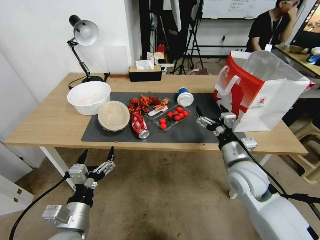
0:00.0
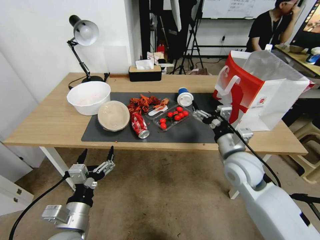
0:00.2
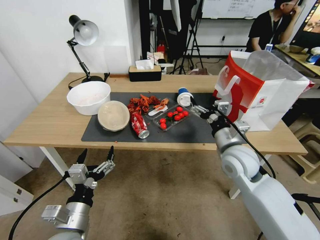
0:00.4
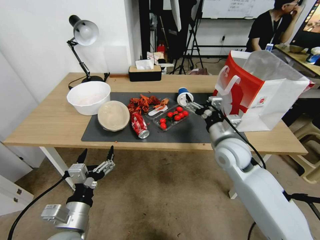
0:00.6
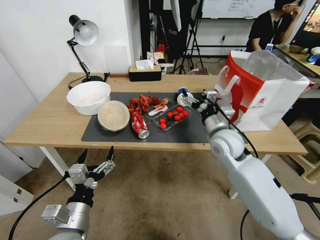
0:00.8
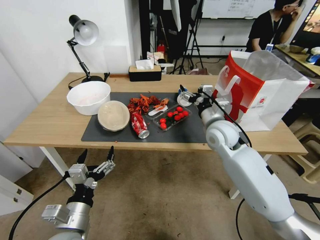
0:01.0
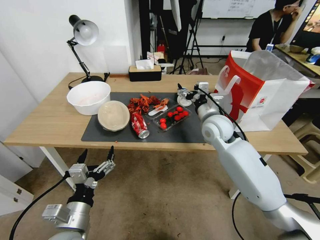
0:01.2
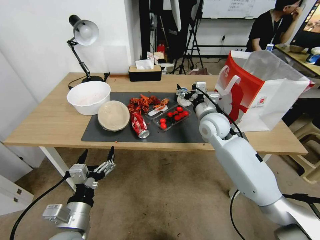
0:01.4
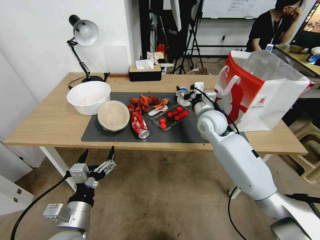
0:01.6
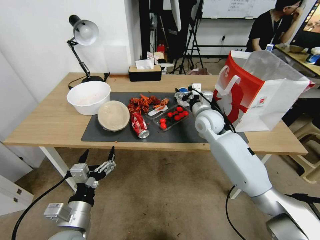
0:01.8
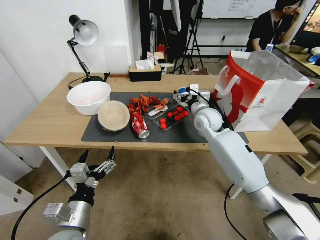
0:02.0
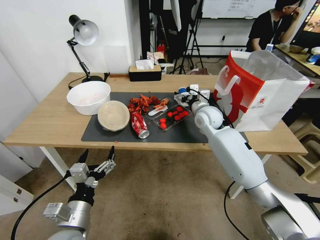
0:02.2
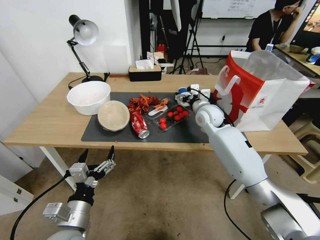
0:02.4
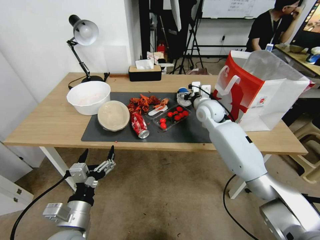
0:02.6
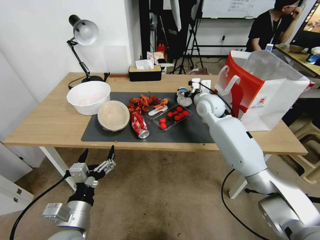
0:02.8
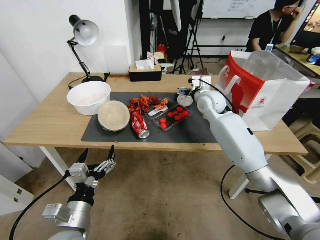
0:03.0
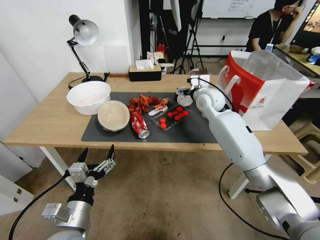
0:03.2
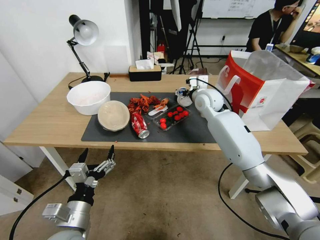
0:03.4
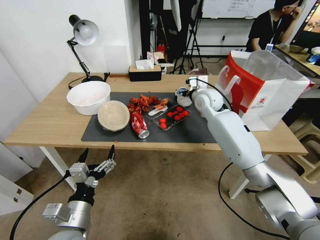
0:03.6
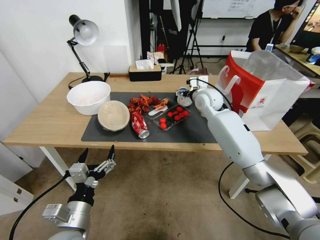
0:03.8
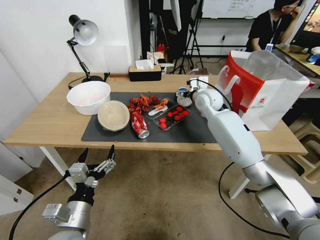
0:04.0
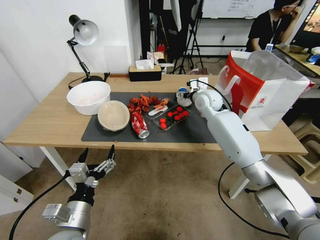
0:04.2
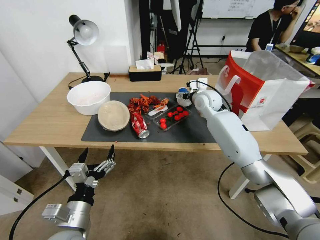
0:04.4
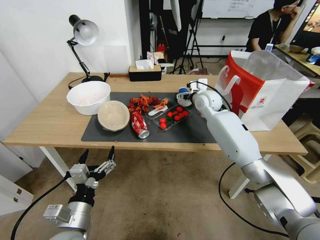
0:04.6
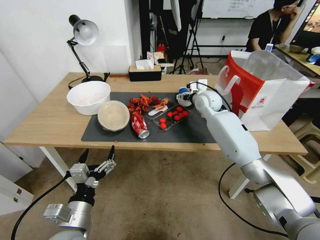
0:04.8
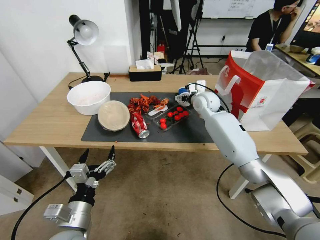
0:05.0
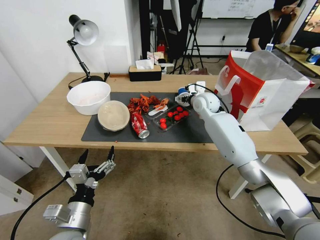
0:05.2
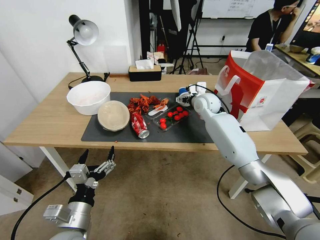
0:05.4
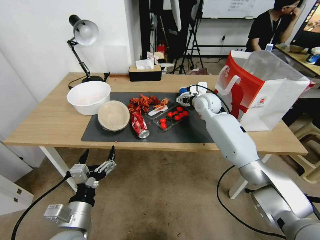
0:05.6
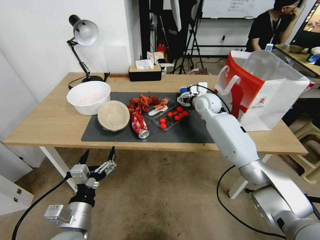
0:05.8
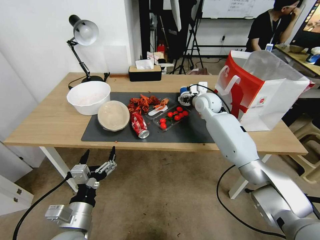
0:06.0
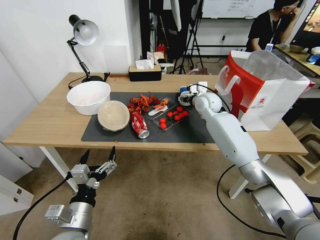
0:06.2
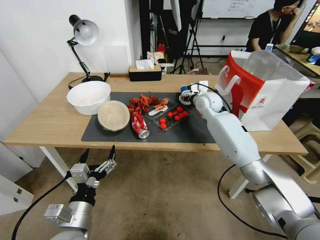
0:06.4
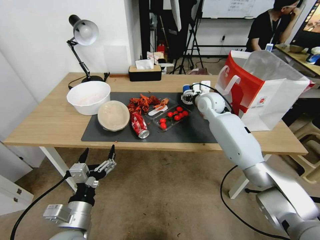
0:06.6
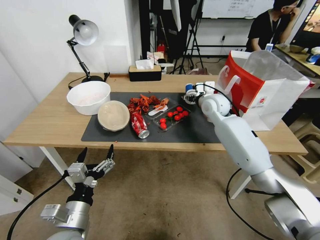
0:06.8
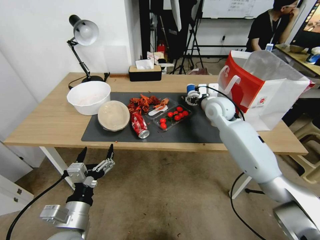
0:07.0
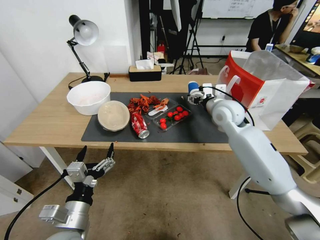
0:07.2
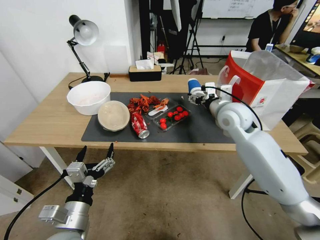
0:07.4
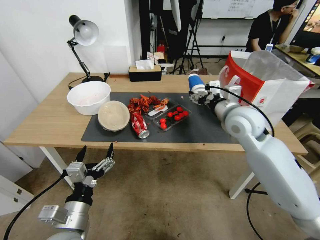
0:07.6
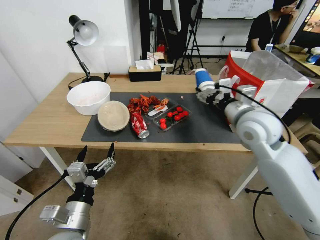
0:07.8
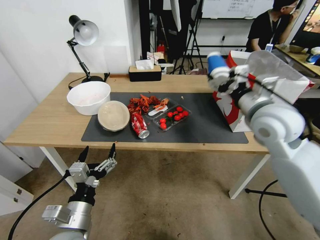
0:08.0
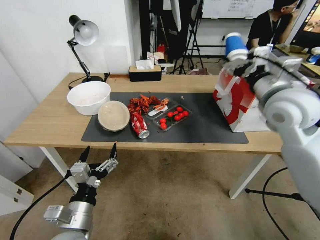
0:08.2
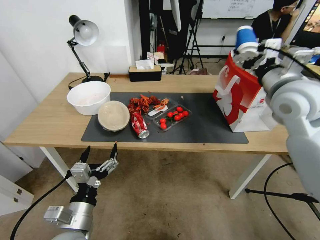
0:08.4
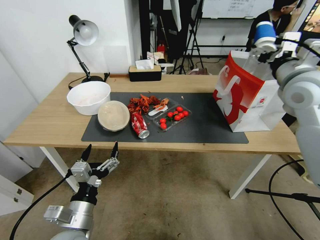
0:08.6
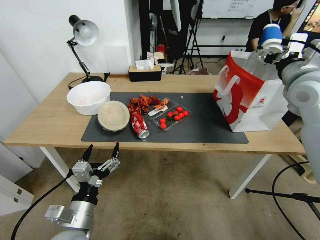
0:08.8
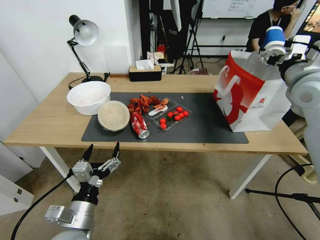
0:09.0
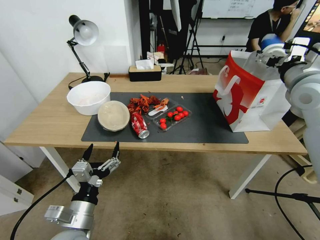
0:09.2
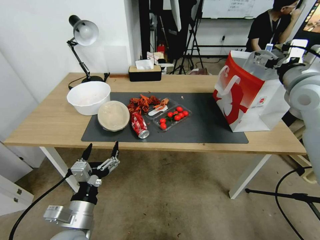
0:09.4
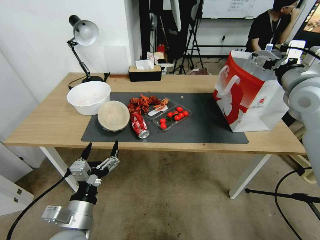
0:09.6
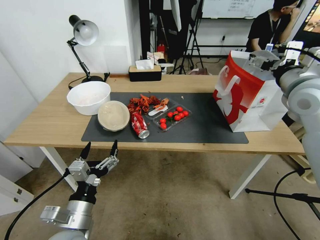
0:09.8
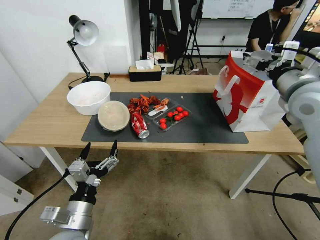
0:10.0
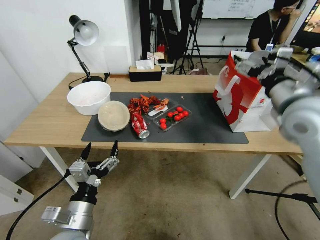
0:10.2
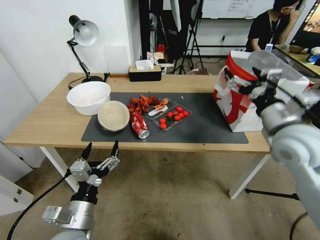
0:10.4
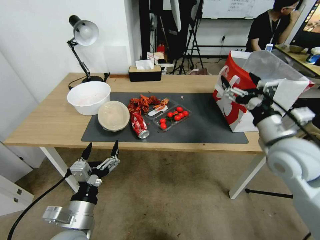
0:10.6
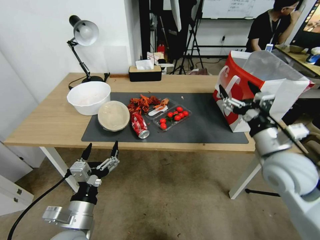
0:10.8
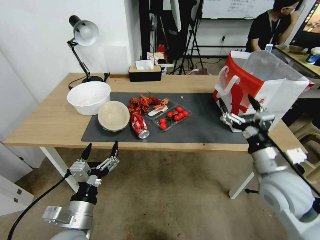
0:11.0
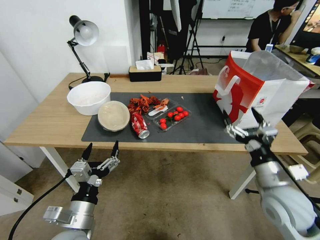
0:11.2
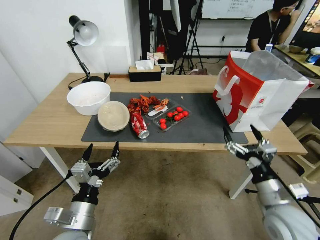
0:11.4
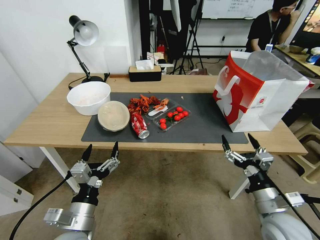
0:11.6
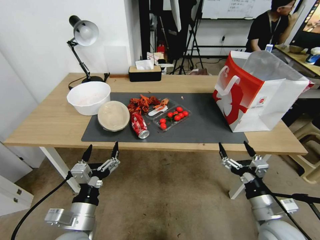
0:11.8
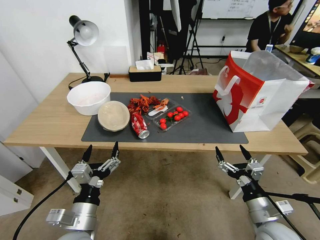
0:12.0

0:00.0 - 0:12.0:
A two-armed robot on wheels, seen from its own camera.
0:00.0 - 0:01.6: The right gripper moves forward, about 20 cm.
0:01.6 - 0:03.0: The right gripper goes about 5 cm forward.
0:03.0 - 0:06.0: The grippers stay close to where they were, moving slightly.
0:06.0 - 0:07.6: The right gripper heads backward and upward, covering some 20 cm.
0:07.6 - 0:09.0: The right gripper moves to the right and upward, some 15 cm.
0:09.0 - 0:10.4: The right gripper moves backward, downward and to the left, approximately 10 cm.
0:10.4 - 0:12.0: The right gripper shifts some 30 cm downward and backward.

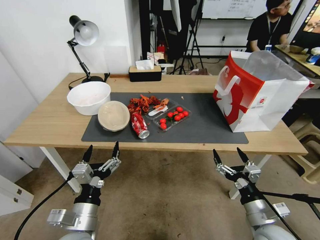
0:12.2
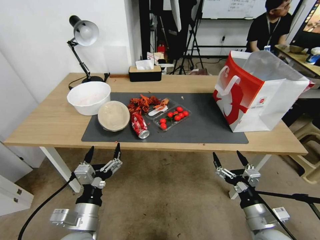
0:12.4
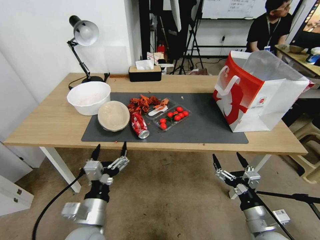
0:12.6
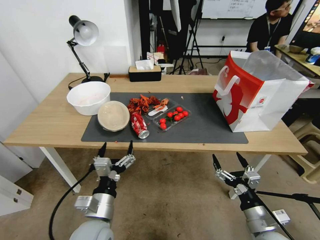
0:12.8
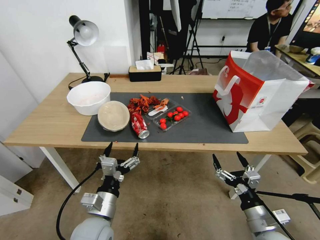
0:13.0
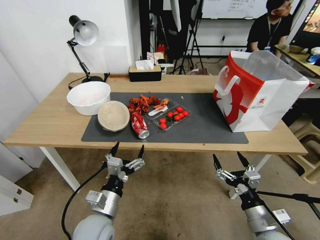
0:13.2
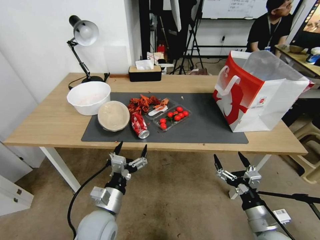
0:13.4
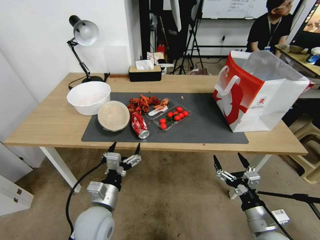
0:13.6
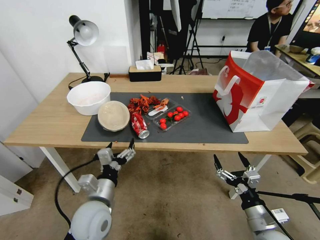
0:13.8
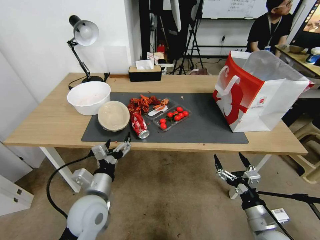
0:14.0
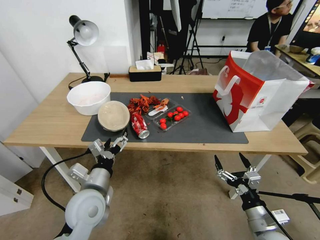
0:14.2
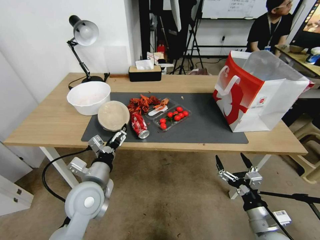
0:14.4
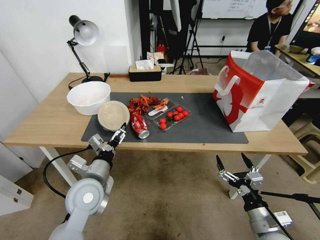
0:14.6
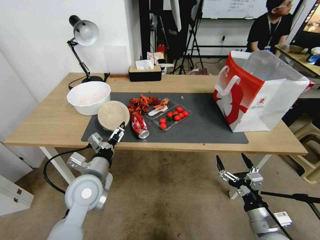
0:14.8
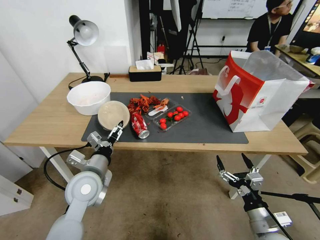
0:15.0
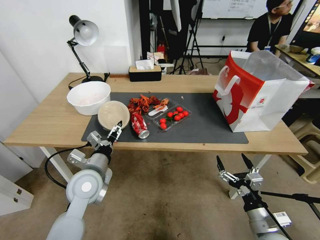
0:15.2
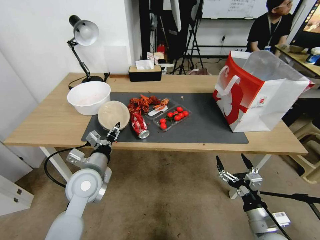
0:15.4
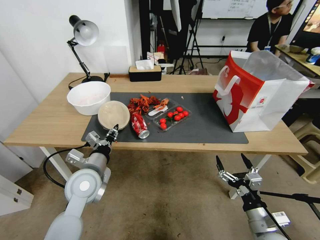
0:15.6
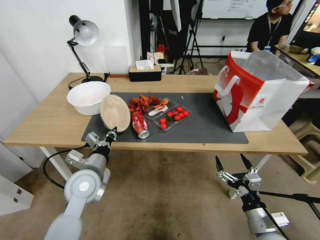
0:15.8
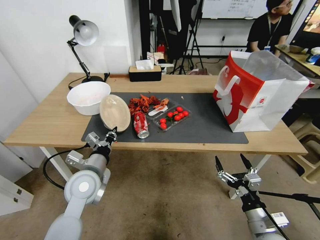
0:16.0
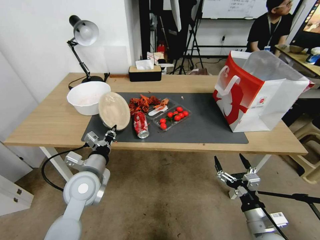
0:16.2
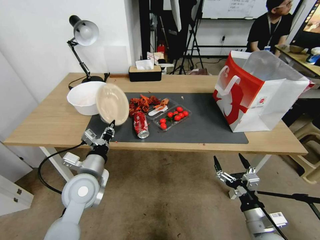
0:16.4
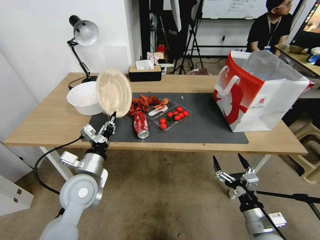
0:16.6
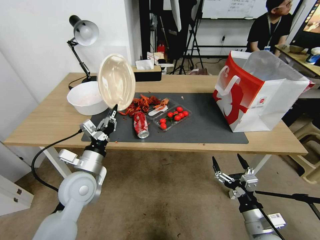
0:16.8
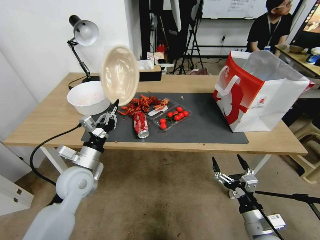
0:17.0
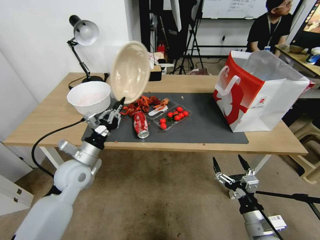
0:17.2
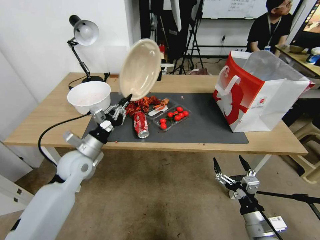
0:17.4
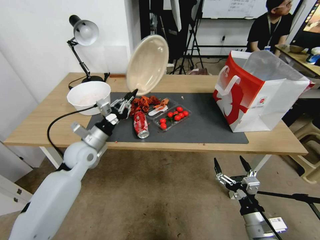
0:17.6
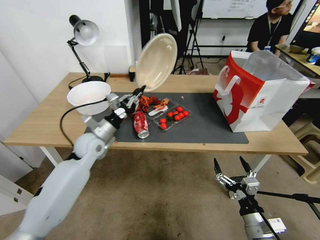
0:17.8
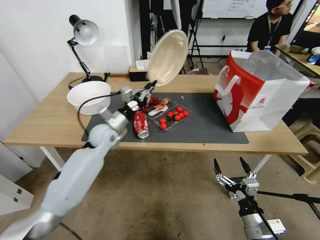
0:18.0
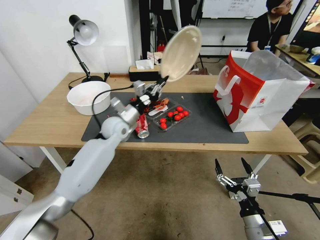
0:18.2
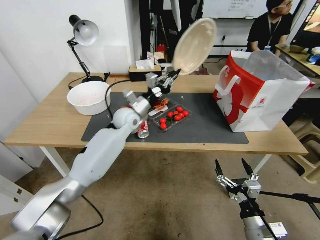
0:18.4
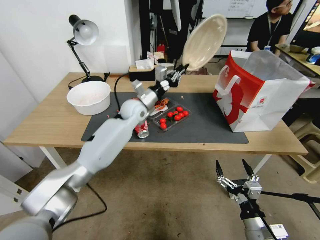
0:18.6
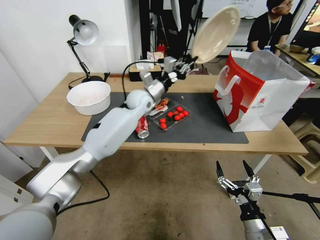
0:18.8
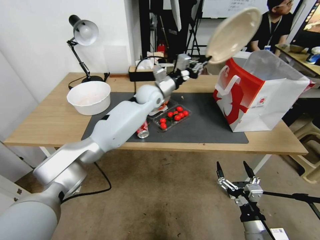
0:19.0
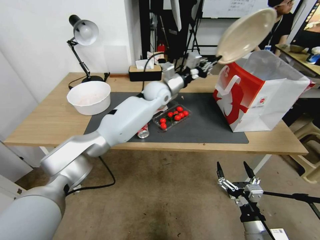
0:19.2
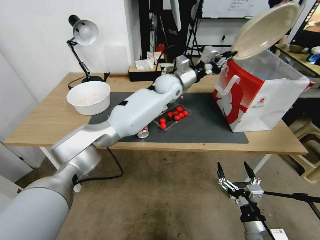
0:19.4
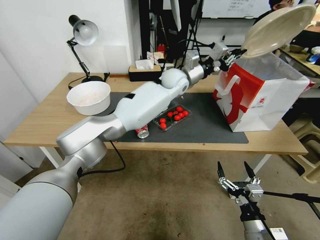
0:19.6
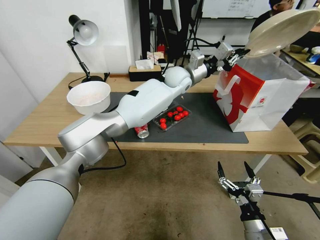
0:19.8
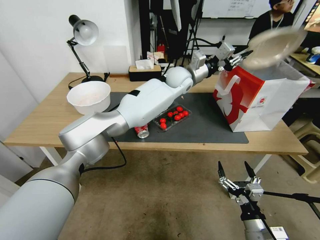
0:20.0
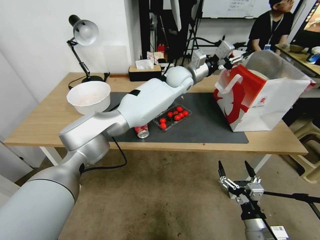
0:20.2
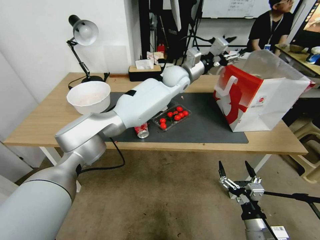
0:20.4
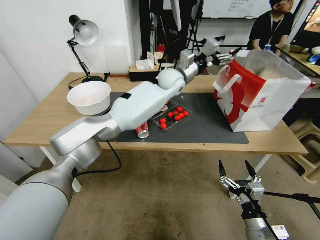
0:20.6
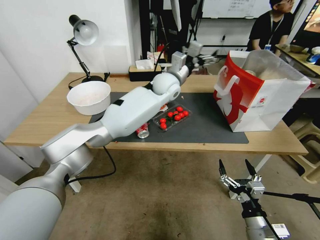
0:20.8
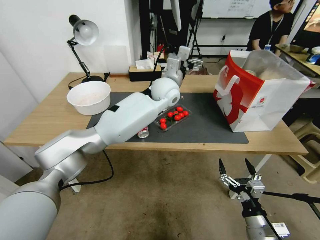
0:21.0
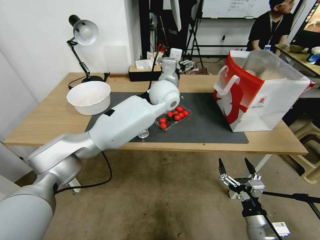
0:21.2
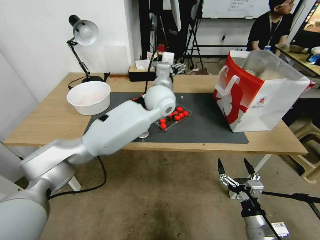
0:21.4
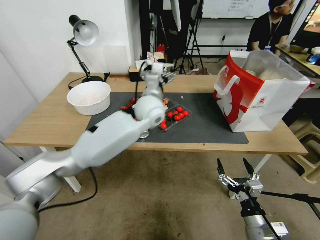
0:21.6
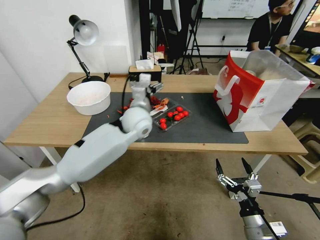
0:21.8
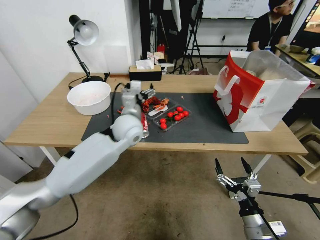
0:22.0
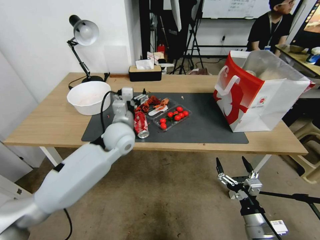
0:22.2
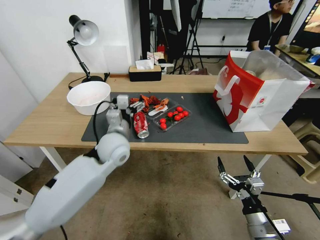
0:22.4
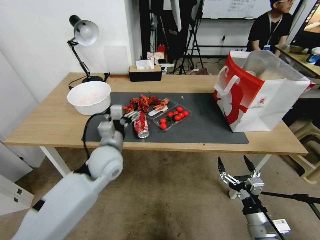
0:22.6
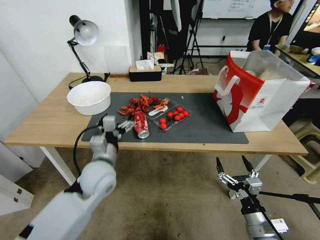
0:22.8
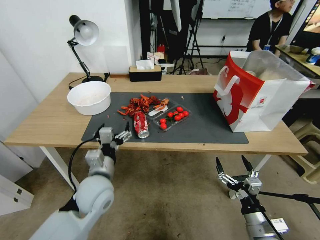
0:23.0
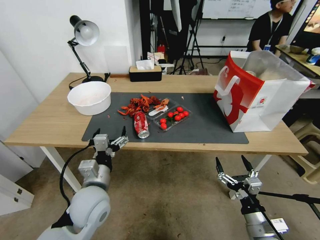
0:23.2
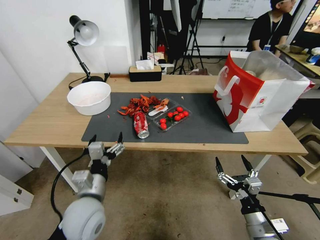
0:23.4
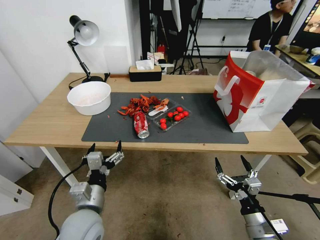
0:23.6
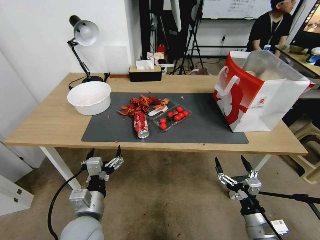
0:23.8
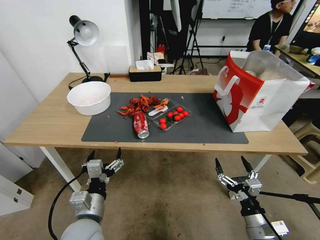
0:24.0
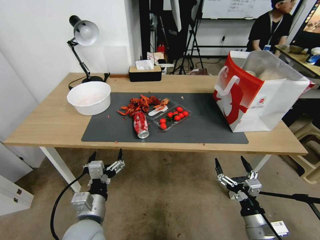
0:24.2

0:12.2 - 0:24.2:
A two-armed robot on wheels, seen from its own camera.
0:12.2 - 0:13.8: The left gripper moves forward, approximately 5 cm.
0:13.8 - 0:15.2: The left gripper is displaced forward by roughly 5 cm.
0:15.2 - 0:16.6: The left gripper closes.
0:16.6 - 0:18.2: The left gripper moves forward, roughly 20 cm.
0:18.2 - 0:19.8: The left gripper moves to the right, upward and forward, approximately 30 cm.
0:19.8 - 0:21.2: The left gripper moves backward, about 5 cm, and opens its fingers.
0:21.2 - 0:22.6: The left gripper travels backward, to the left and downward by roughly 30 cm.
0:22.6 - 0:24.2: The left gripper heads backward and downward, covering roughly 20 cm.
